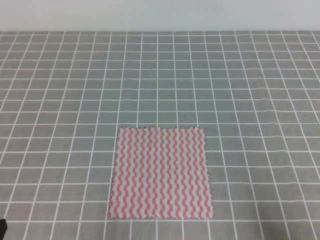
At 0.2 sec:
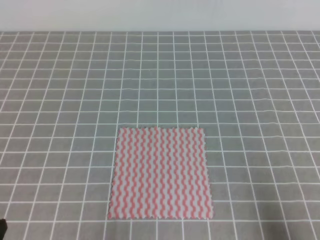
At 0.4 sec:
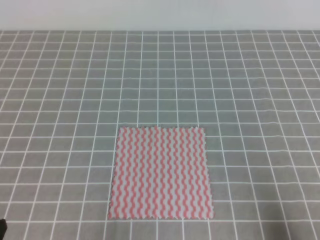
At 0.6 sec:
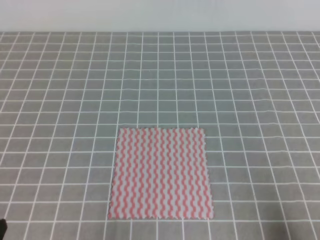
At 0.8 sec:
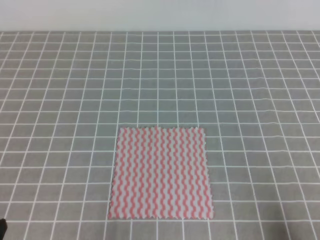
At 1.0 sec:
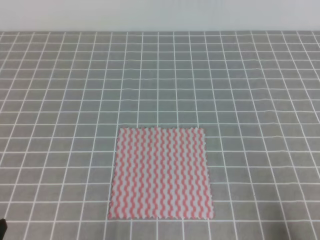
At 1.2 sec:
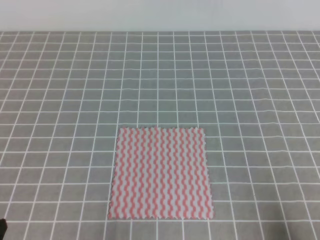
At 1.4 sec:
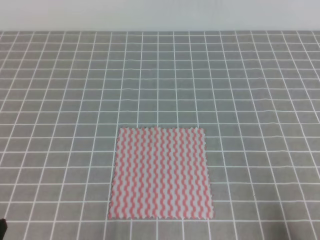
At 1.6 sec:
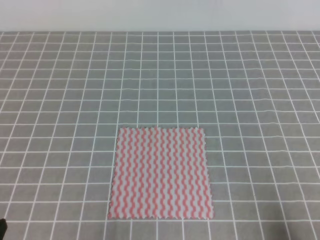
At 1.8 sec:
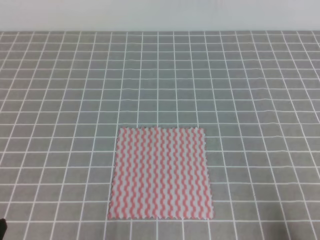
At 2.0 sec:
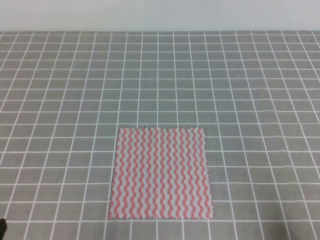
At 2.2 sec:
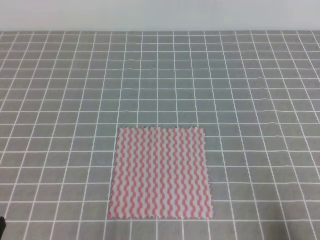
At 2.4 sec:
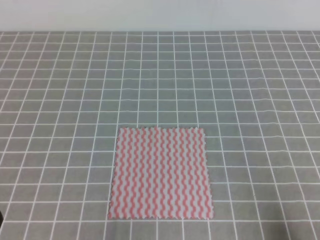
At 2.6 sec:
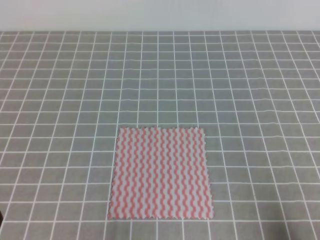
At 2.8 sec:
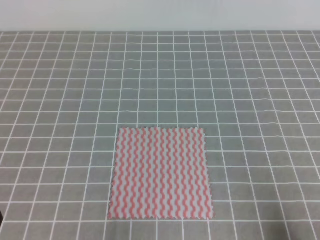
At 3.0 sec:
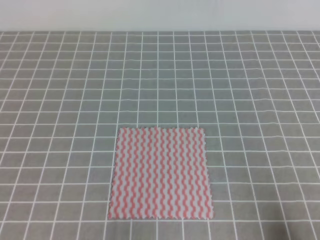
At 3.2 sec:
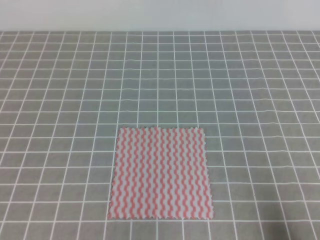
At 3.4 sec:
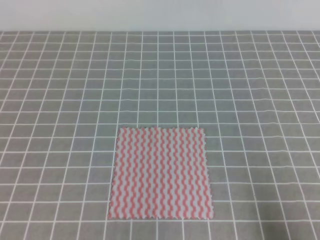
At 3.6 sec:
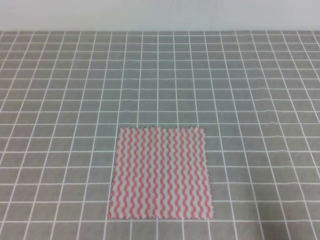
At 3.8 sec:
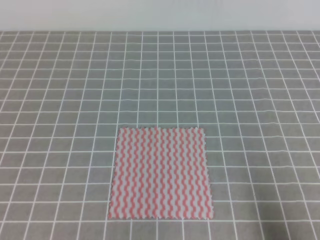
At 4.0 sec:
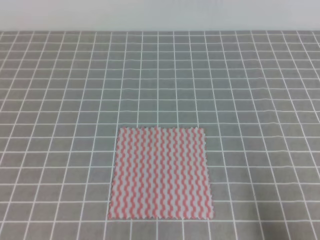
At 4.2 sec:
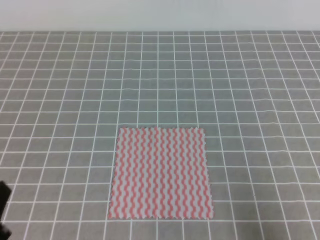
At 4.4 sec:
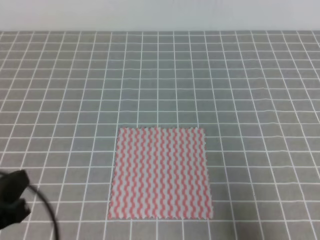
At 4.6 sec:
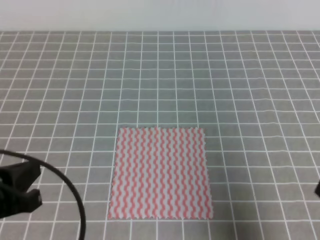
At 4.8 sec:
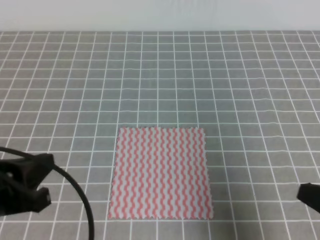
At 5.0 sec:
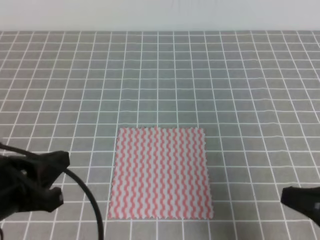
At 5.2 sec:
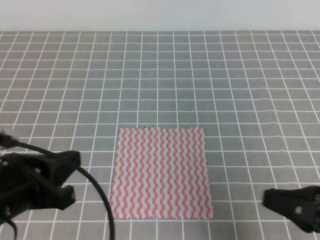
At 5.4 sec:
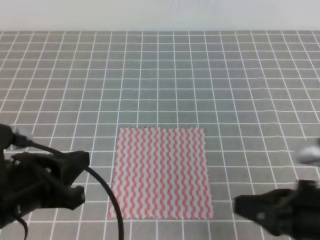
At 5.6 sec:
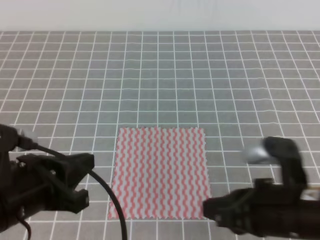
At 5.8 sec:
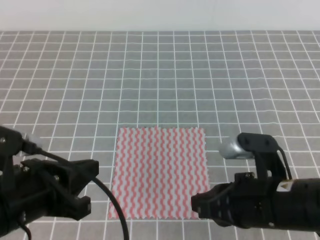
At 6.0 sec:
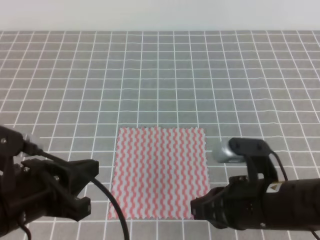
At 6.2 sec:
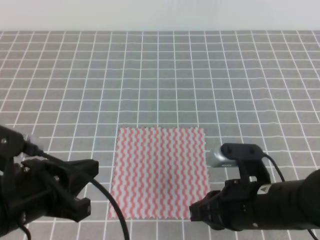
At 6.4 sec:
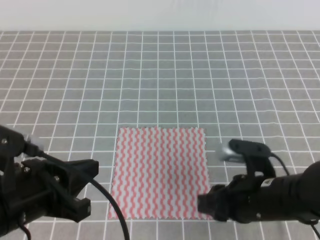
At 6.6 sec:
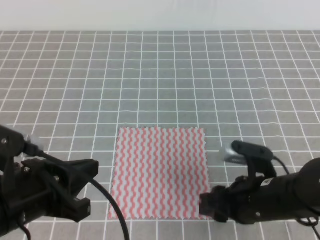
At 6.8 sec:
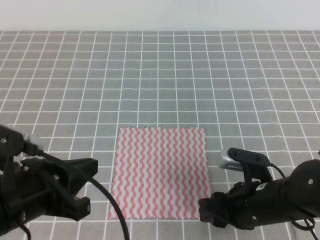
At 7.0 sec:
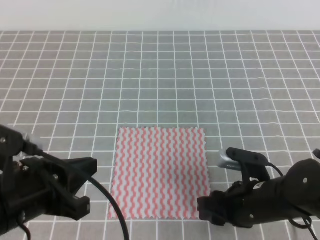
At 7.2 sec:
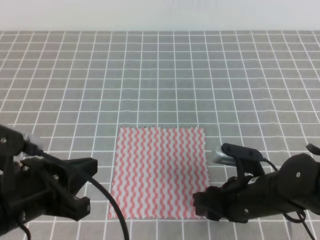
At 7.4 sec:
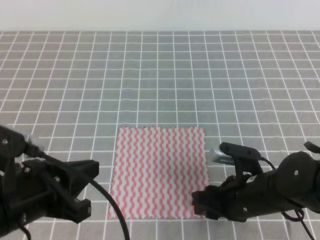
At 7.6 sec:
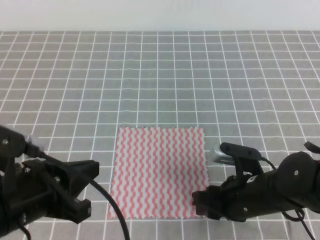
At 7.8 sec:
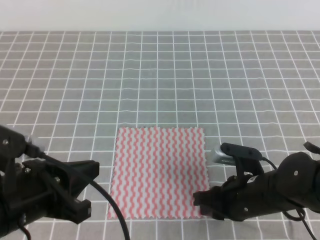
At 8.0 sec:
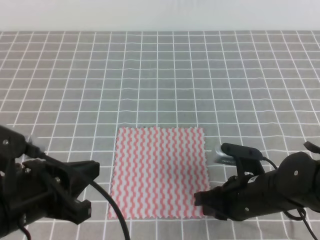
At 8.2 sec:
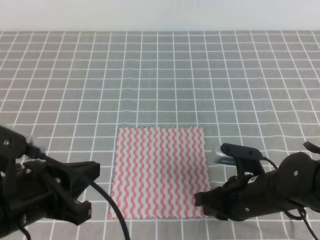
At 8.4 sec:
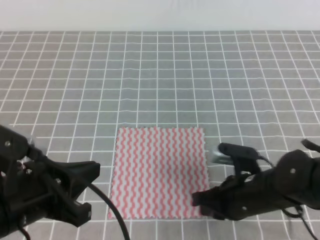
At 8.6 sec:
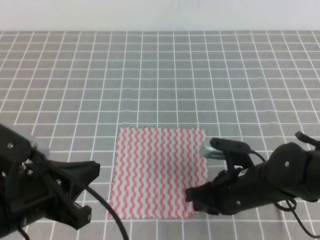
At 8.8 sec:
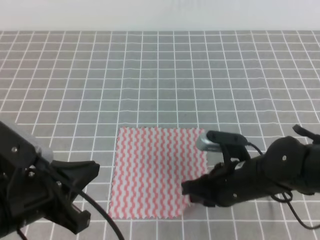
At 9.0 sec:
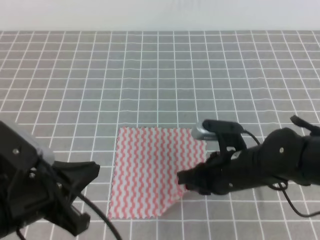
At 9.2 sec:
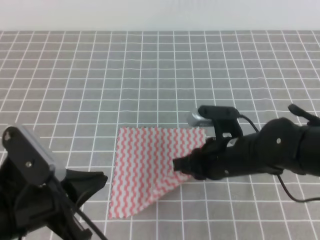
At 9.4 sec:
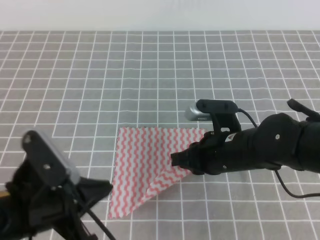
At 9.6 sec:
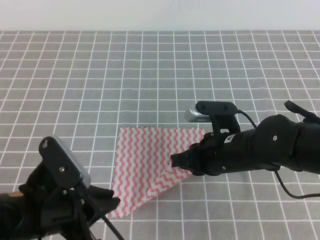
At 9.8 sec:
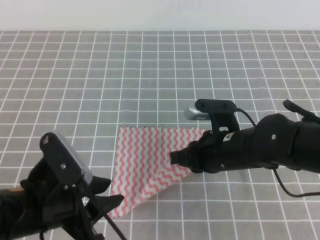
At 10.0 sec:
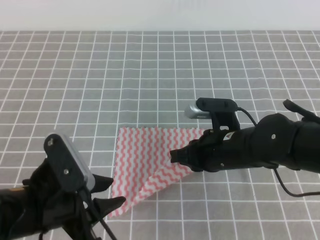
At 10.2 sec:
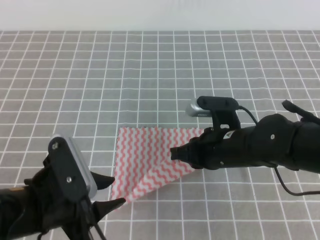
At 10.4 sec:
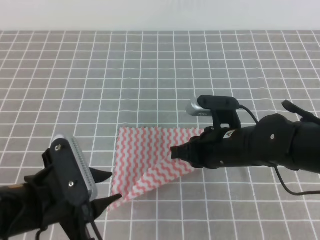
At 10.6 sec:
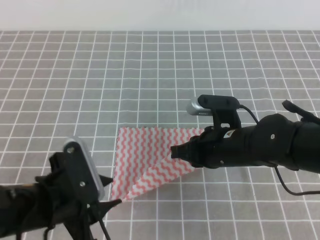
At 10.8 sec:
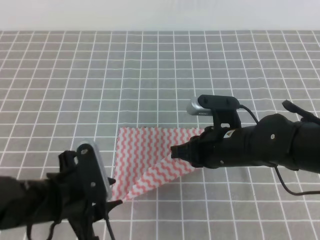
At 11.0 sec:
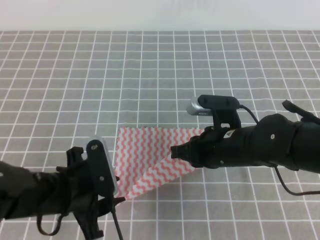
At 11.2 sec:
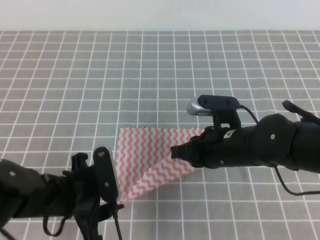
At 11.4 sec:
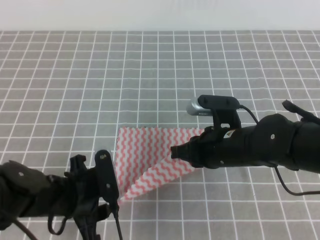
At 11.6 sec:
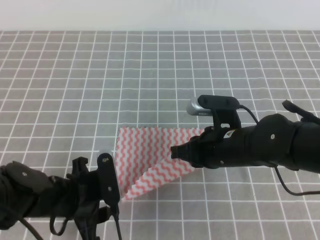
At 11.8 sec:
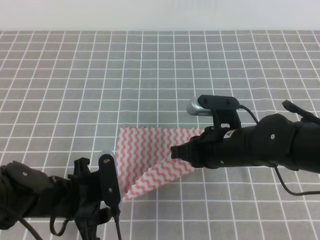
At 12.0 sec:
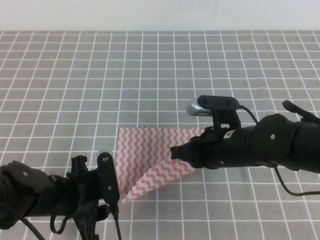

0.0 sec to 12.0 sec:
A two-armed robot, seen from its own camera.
3.0 sec to 4.4 sec: The grippers both shift upward by some 5 cm.
4.4 sec to 6.0 sec: The right gripper goes approximately 20 cm to the left and forward, while the left gripper shifts some 5 cm to the right.
6.0 sec to 7.6 sec: The right gripper moves downward, roughly 10 cm, and opens up.
7.6 sec to 9.0 sec: The right gripper moves some 5 cm, and closes up.
9.0 sec to 10.4 sec: The left gripper opens its fingers.
10.4 sec to 12.0 sec: The left gripper heads downward and forward, covering about 10 cm.

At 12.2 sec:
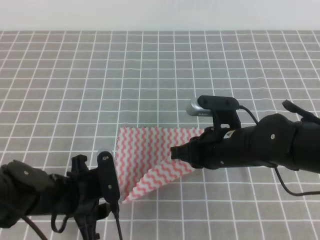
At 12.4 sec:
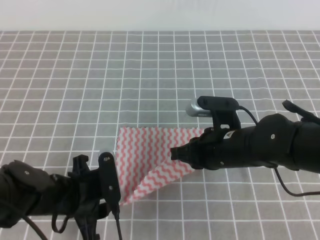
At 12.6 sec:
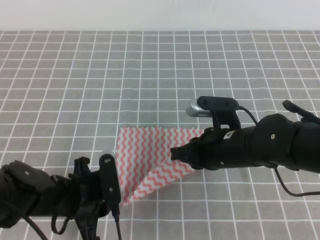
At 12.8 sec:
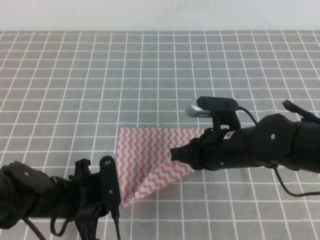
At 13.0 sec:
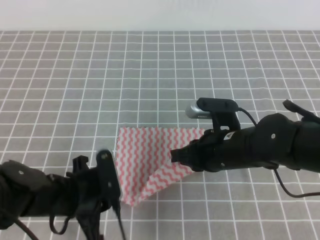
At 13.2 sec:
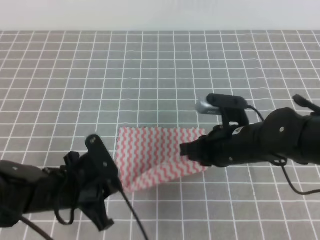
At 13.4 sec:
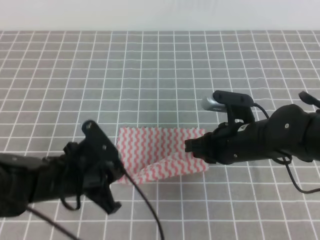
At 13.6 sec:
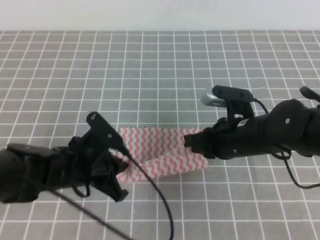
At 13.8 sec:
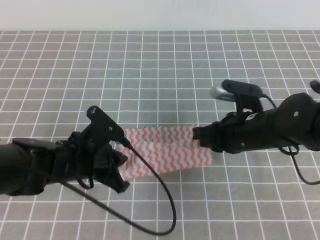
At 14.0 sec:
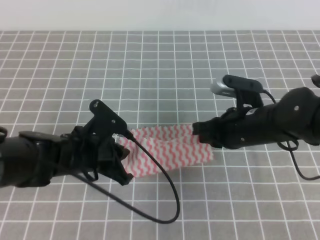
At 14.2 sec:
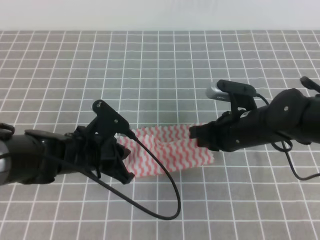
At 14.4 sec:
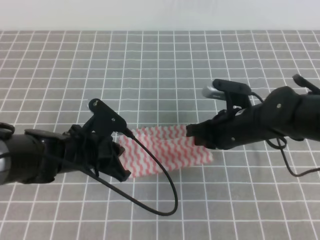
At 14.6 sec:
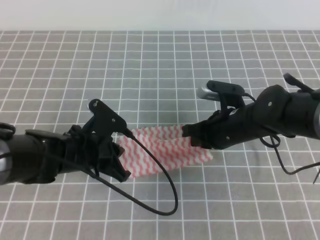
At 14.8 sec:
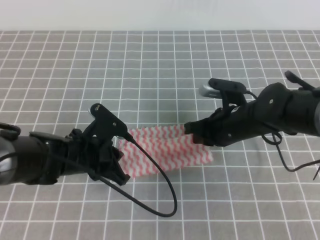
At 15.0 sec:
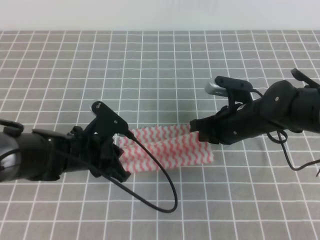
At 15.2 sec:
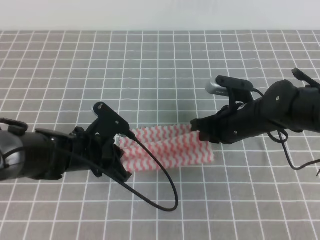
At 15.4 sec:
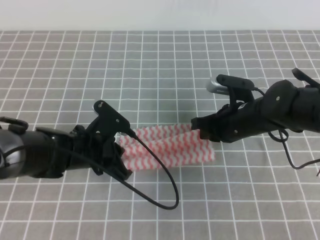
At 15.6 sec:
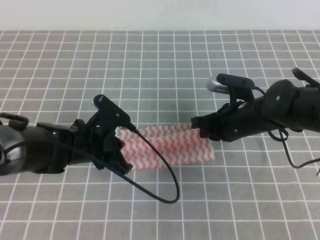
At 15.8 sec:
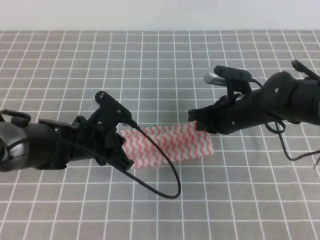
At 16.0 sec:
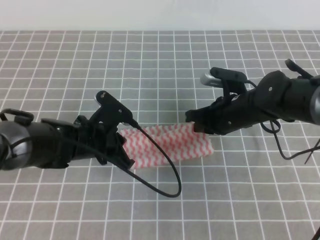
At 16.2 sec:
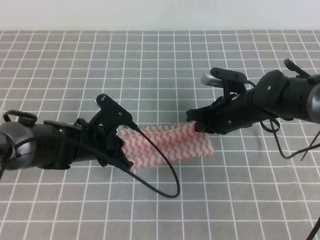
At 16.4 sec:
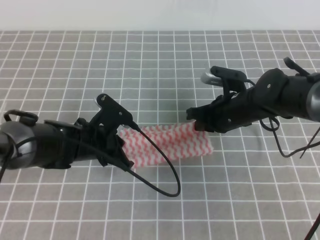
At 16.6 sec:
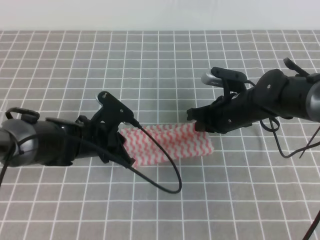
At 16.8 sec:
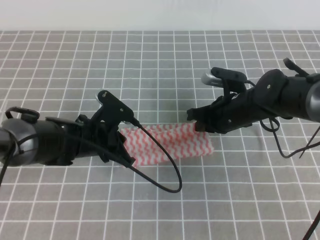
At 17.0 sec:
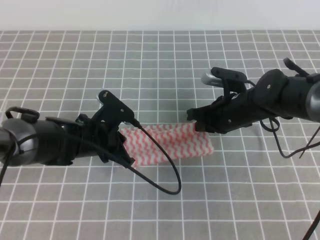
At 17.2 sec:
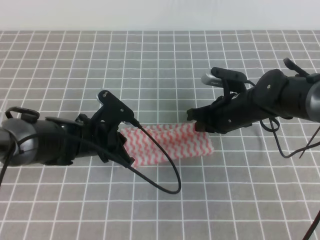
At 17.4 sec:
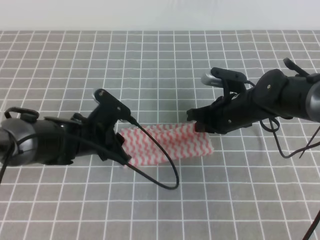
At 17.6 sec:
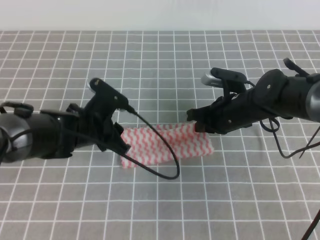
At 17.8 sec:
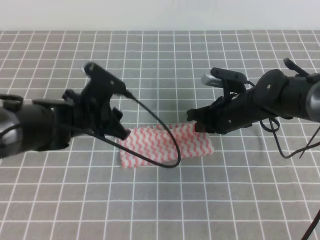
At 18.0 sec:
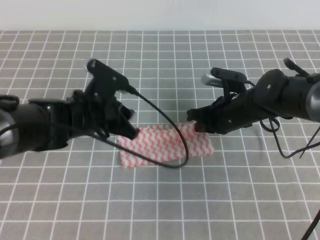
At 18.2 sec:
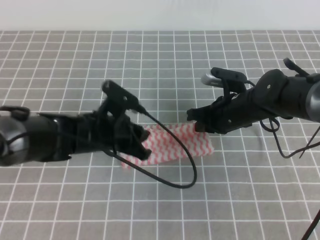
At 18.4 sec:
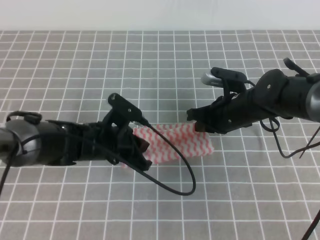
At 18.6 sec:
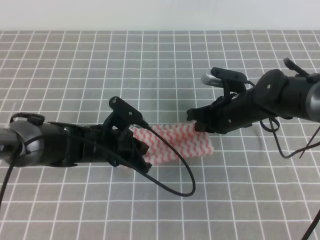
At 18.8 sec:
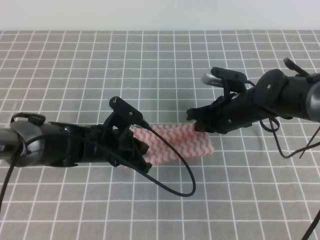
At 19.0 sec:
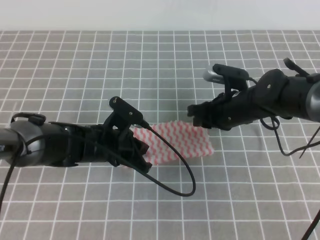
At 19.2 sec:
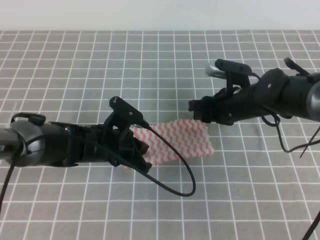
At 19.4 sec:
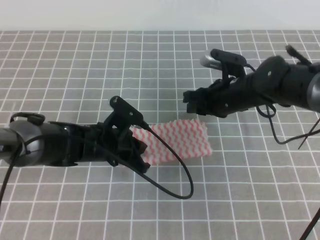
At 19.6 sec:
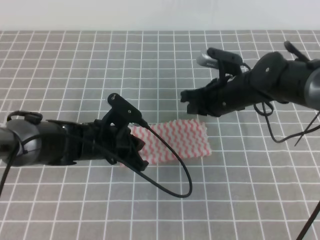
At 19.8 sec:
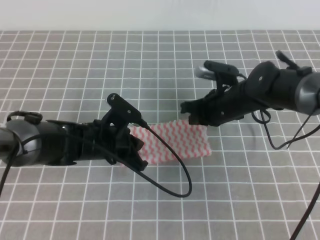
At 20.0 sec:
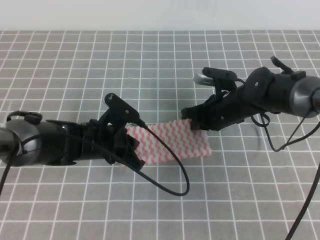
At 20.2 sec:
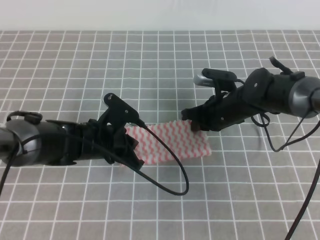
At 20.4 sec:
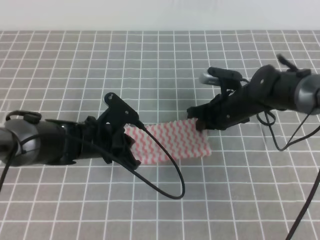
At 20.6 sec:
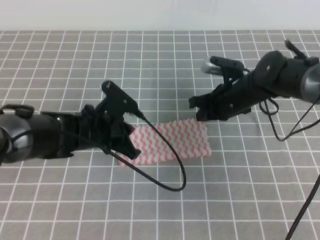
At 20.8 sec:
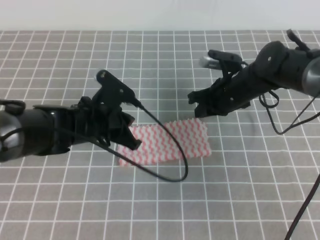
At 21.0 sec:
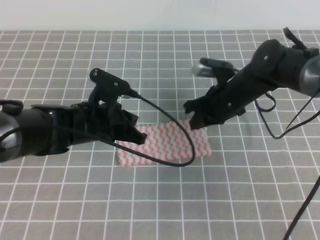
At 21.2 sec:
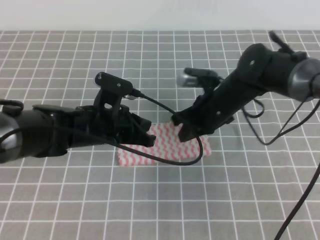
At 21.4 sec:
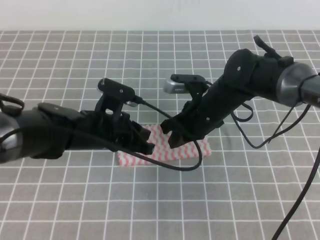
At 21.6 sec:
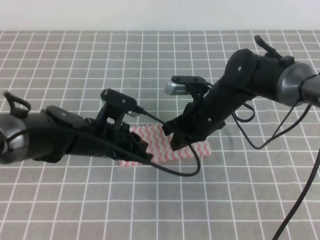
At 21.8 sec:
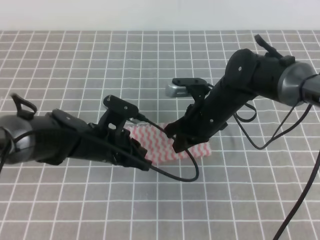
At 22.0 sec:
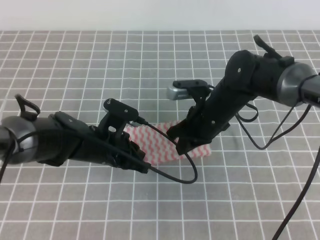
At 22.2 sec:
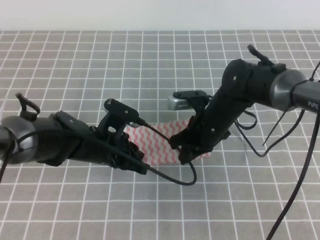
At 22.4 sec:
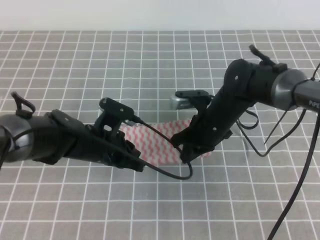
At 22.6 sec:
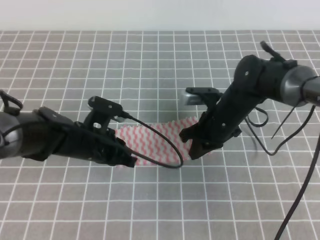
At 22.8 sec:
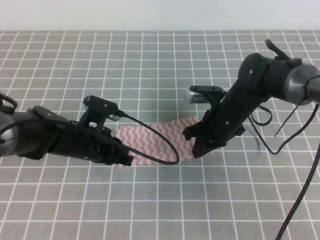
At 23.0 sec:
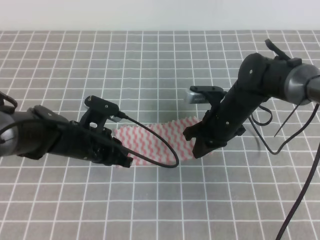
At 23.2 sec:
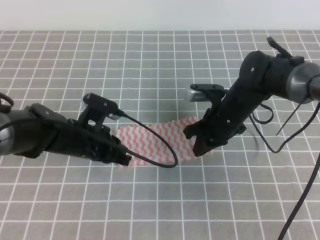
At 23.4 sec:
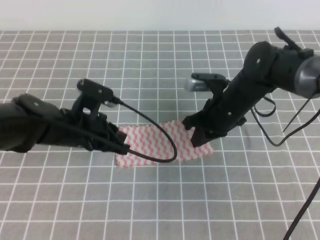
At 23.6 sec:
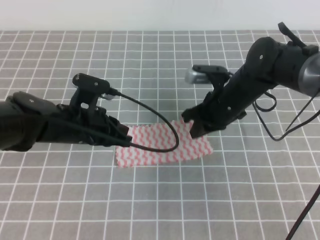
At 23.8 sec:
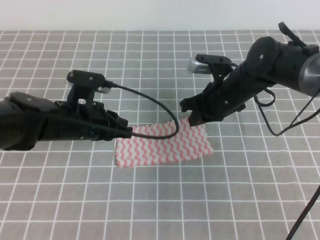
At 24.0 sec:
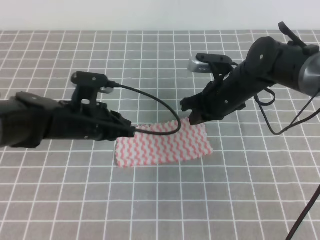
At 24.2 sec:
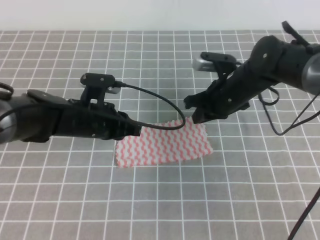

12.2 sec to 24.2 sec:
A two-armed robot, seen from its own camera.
12.2 sec to 13.8 sec: The left gripper changes place by about 5 cm, and closes its fingers.
13.8 sec to 15.2 sec: The right gripper shifts by roughly 5 cm.
15.2 sec to 16.6 sec: The grippers make only small movements.
16.6 sec to 18.2 sec: The left gripper opens.
18.2 sec to 19.8 sec: The right gripper opens, then closes again. Meanwhile the left gripper closes up.
21.2 sec to 22.6 sec: The left gripper moves roughly 5 cm.
22.6 sec to 24.2 sec: The right gripper ends up approximately 5 cm from where it was.
